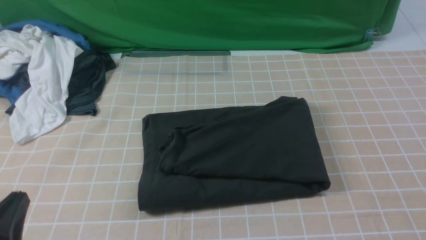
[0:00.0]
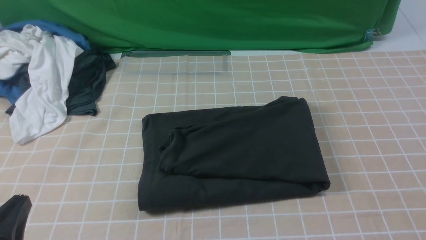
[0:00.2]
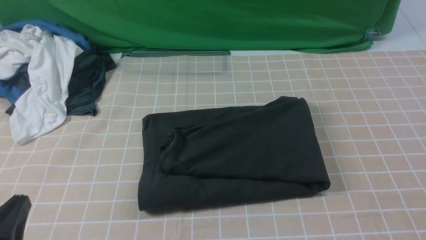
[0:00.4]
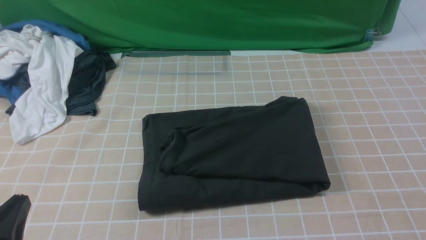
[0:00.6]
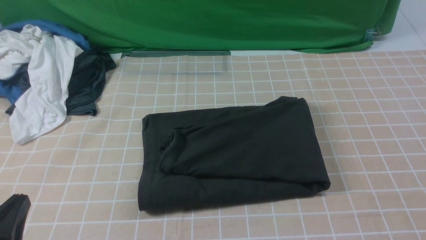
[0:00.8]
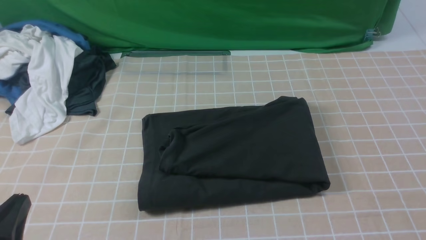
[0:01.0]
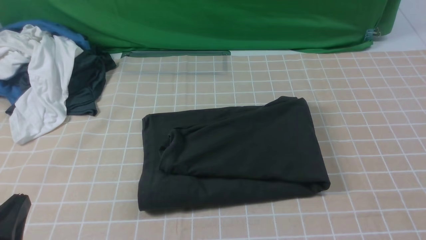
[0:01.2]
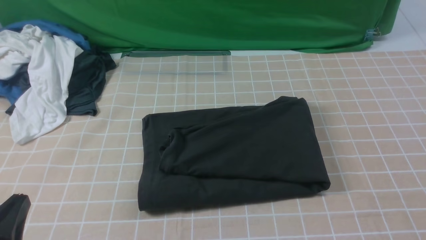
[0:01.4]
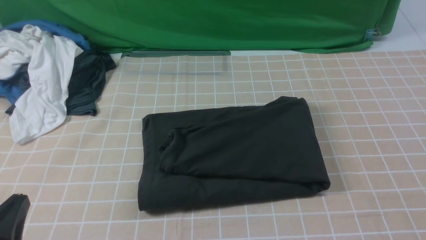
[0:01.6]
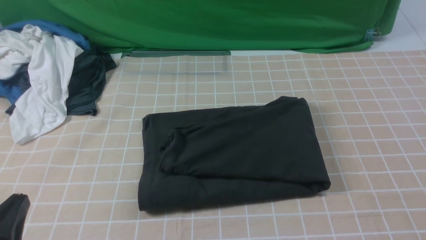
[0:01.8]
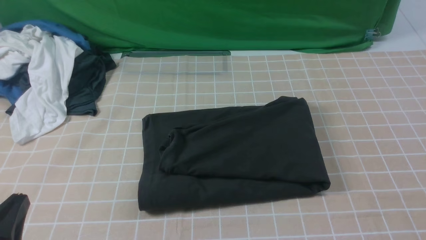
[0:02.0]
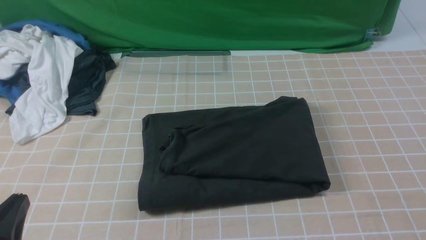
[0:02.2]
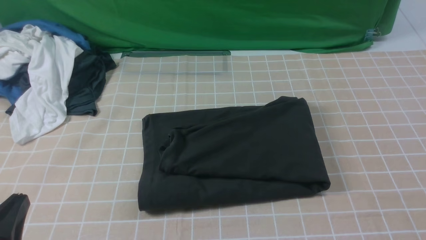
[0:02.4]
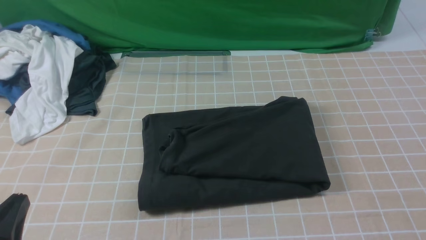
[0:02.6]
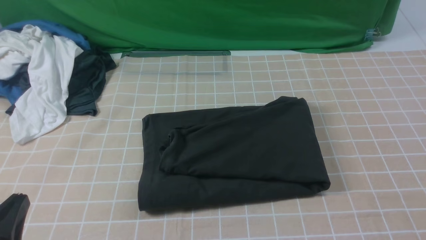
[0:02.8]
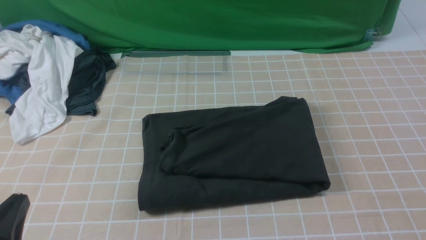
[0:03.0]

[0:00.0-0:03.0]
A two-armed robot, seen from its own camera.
1.6 to 3.0 s: Neither gripper changes place.

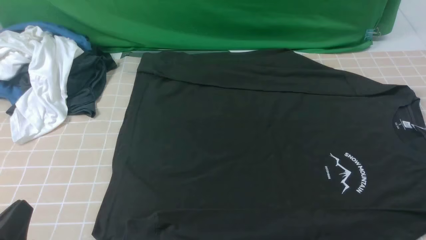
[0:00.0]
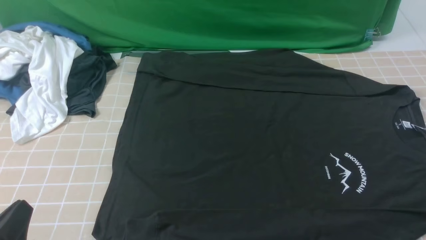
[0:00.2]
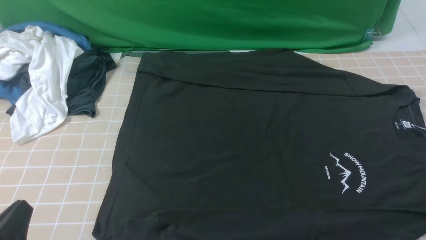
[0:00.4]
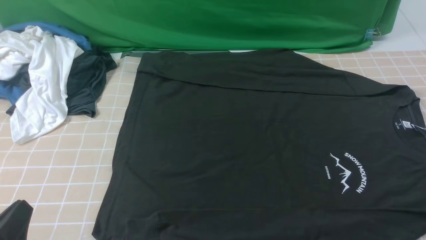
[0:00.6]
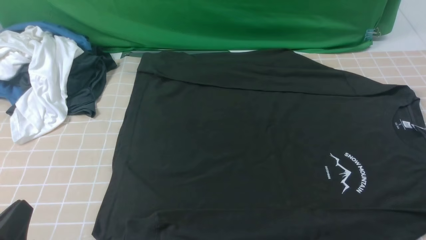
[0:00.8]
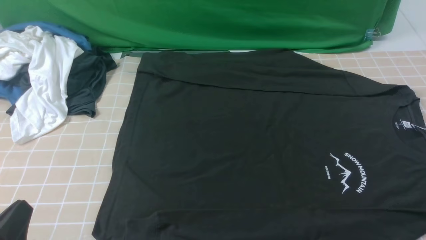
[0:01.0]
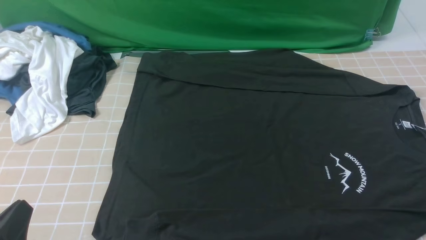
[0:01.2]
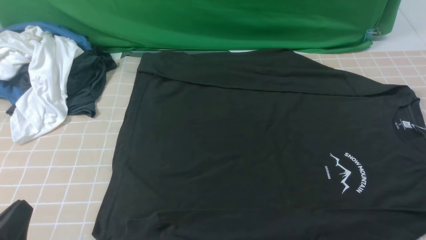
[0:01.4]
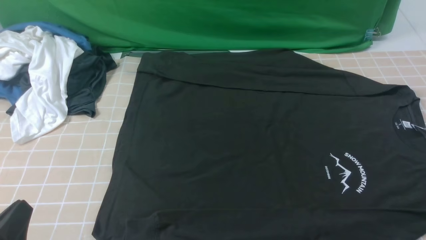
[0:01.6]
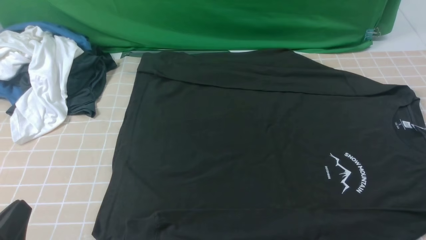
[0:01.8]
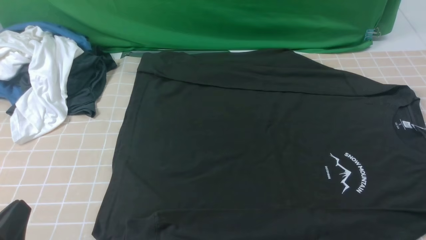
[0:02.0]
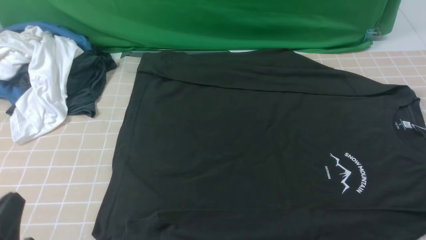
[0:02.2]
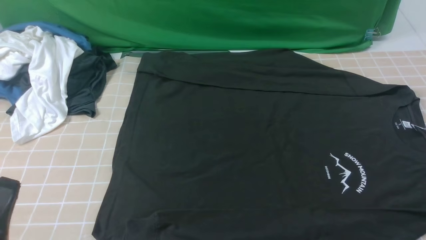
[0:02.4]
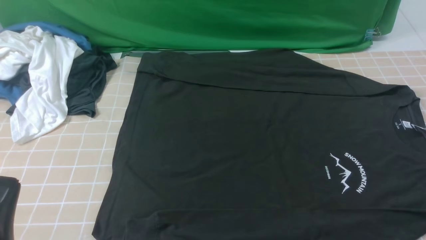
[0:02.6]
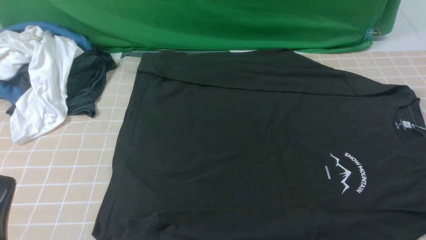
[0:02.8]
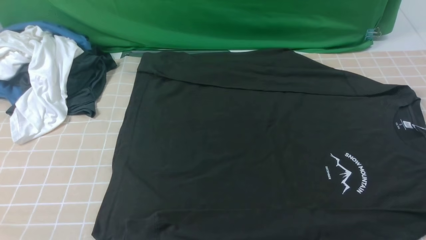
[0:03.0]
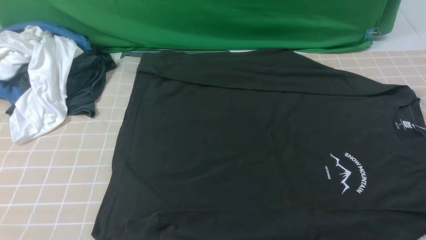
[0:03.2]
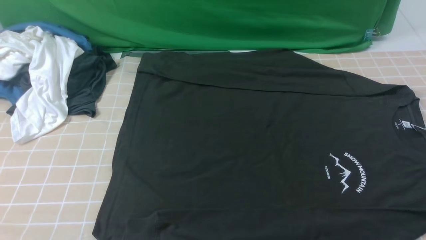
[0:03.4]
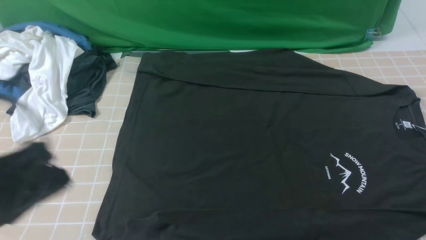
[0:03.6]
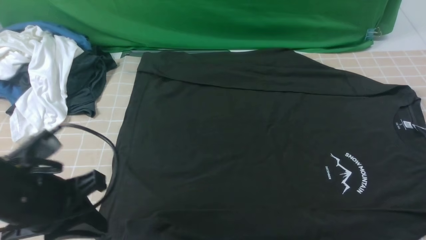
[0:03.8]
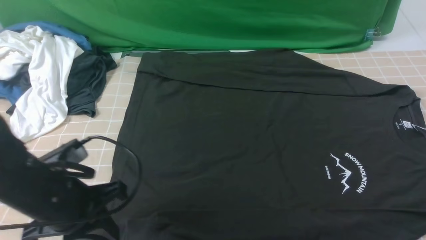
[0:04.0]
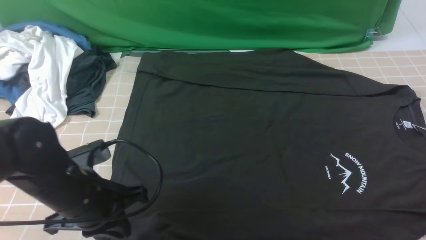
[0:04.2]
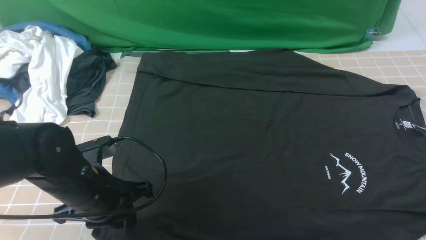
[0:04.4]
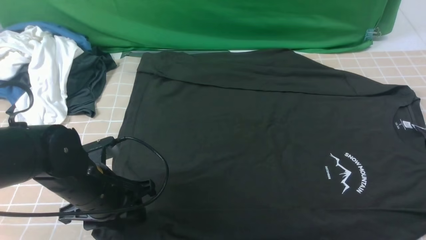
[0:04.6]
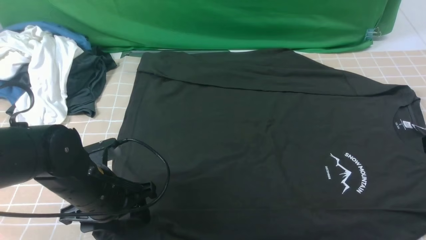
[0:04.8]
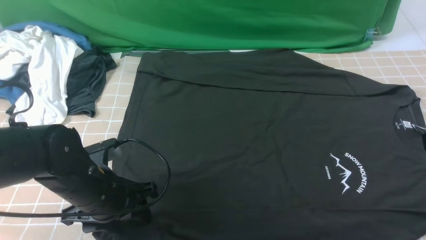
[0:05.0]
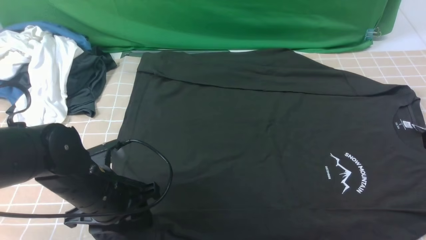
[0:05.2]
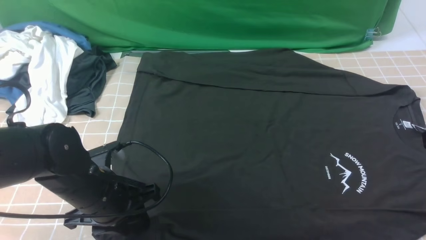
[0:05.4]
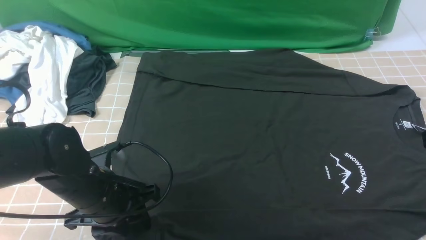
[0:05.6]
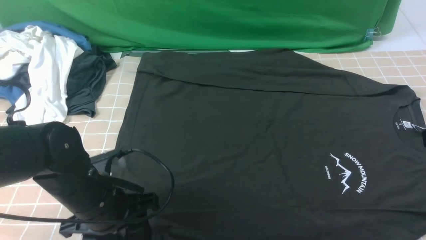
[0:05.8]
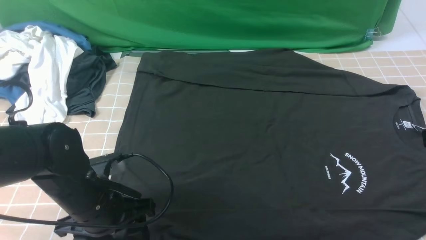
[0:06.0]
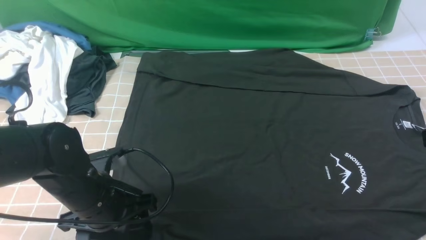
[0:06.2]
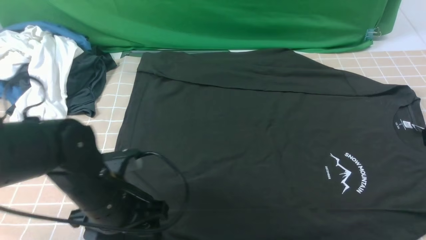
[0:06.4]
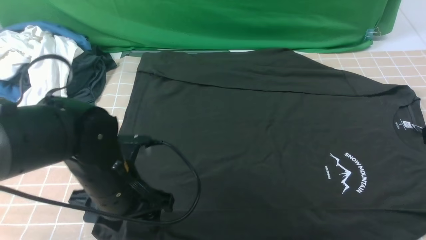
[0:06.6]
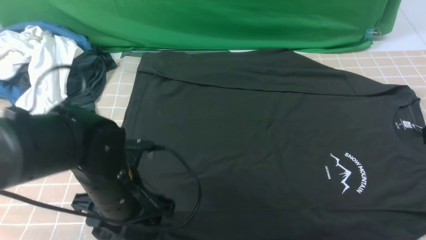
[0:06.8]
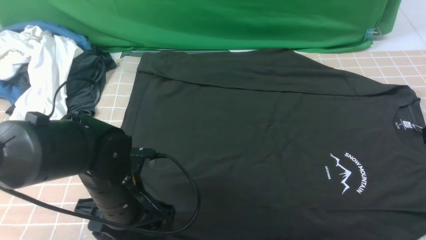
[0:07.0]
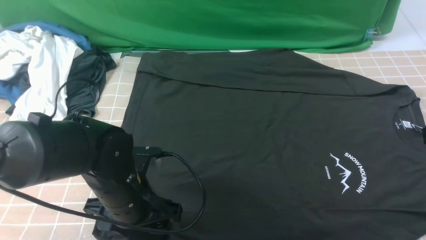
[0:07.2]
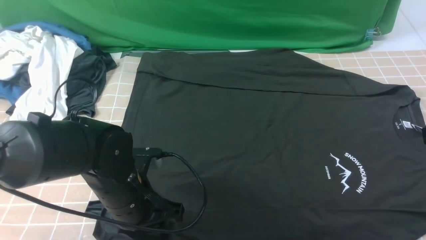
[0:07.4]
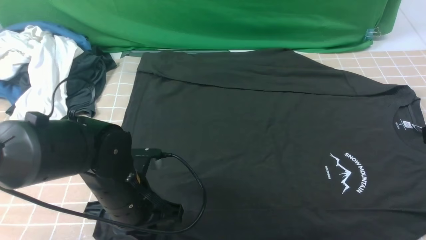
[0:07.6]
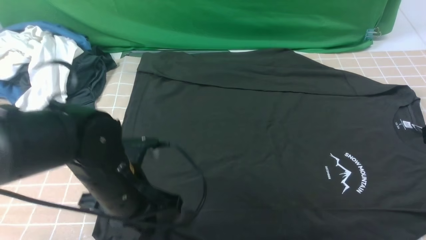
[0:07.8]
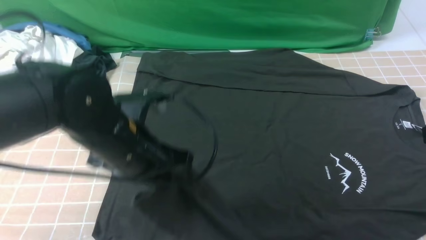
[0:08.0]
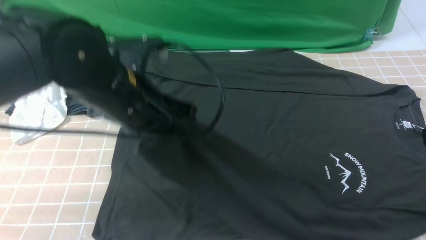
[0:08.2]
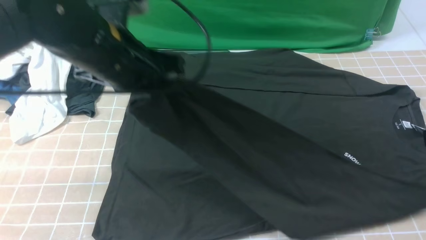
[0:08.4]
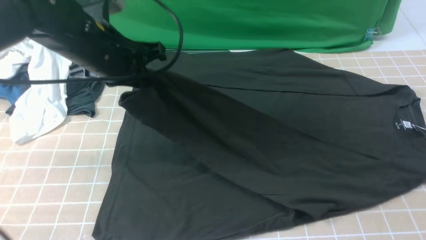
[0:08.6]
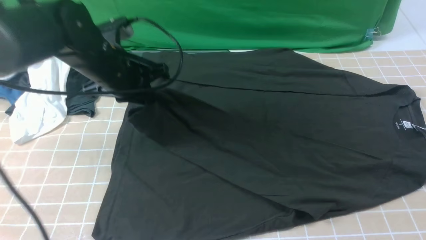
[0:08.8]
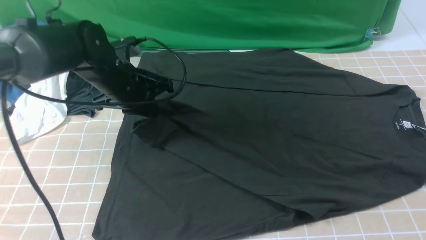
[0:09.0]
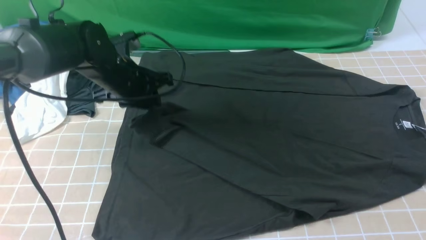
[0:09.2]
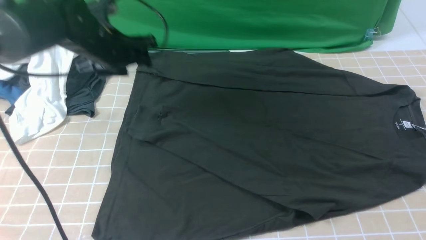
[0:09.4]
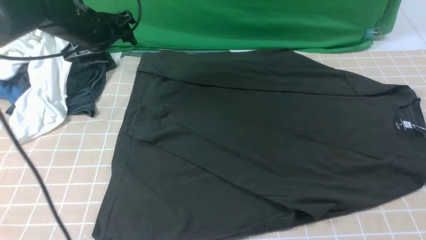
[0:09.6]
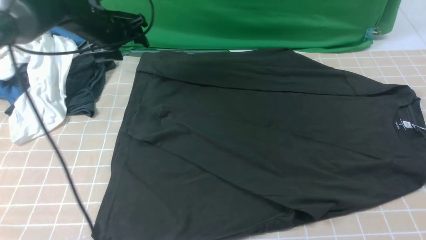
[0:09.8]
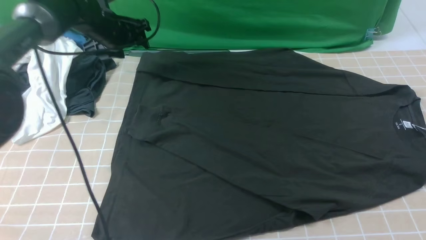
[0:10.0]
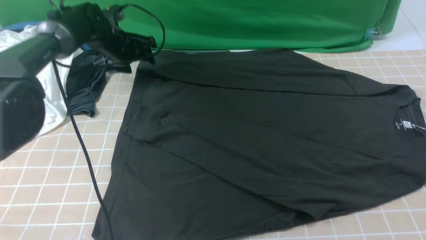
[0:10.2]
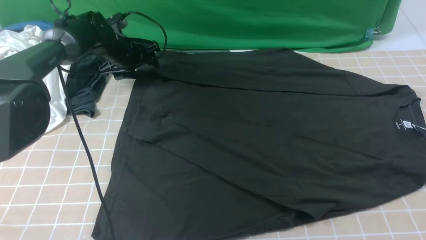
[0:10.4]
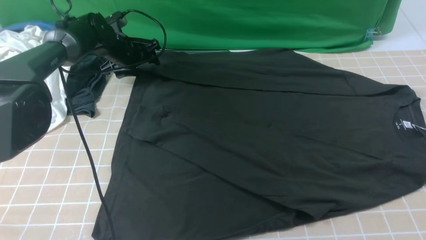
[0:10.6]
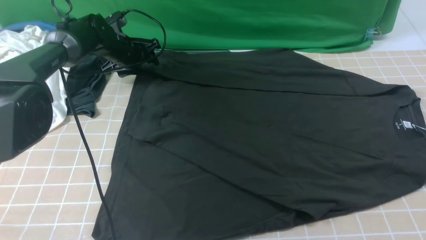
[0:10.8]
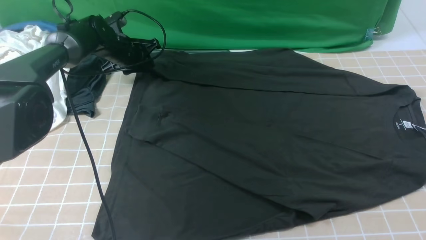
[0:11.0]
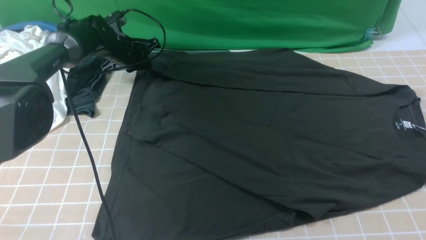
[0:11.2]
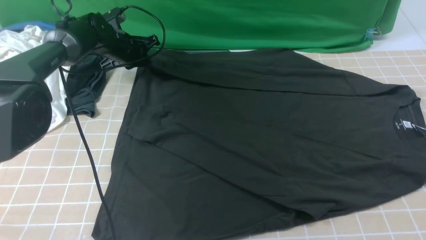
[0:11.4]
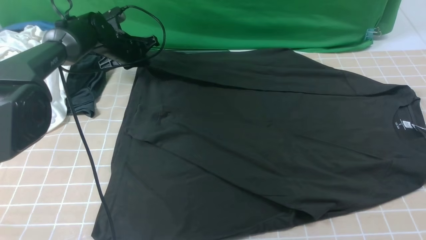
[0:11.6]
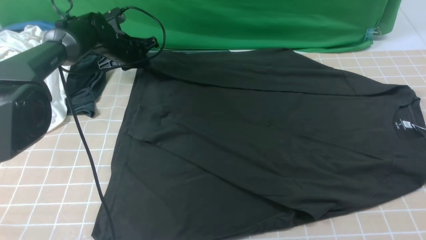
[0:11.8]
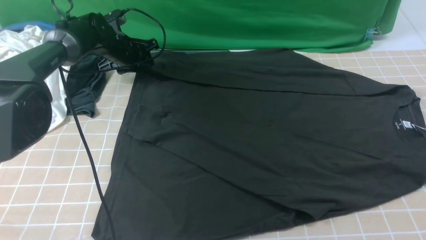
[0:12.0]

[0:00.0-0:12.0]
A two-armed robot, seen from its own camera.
Step, 0.0 to 7.6 s: use the left arm to clamp the cuff closest to it.
Step, 8.0 to 9.2 s: use the left arm to drag and place the cuff at the centered position on the left edge of the fabric.
0.0 to 1.6 s: The two grippers keep their place.
3.0 to 4.4 s: The left gripper is displaced forward and to the right by some 20 cm.
4.4 to 6.0 s: The left gripper opens up.
6.0 to 7.6 s: The left gripper closes its fingers.
7.6 to 9.0 s: The right gripper closes. Meanwhile the left gripper heads forward, covering approximately 15 cm.
9.0 to 10.4 s: The left gripper goes some 15 cm forward, and opens.
10.4 to 12.0 s: The left gripper closes, then reopens.

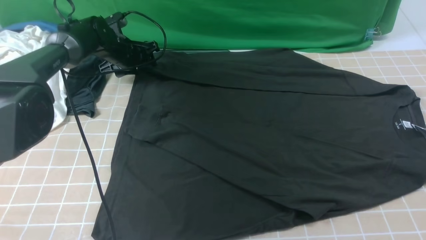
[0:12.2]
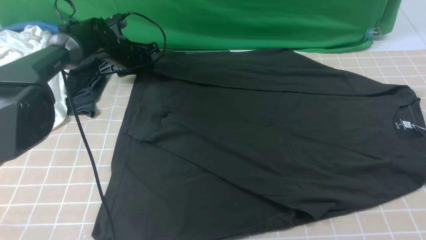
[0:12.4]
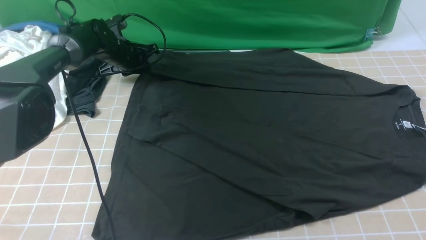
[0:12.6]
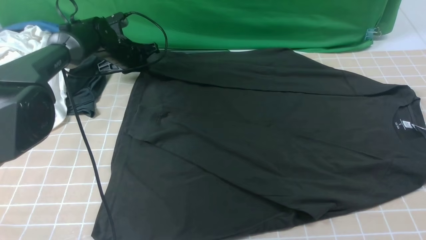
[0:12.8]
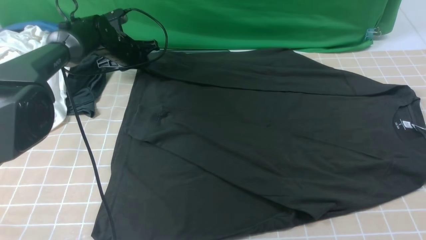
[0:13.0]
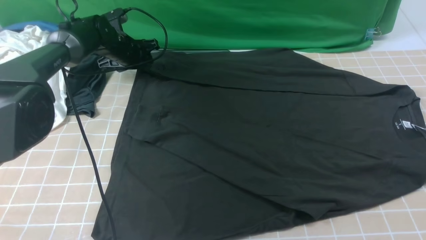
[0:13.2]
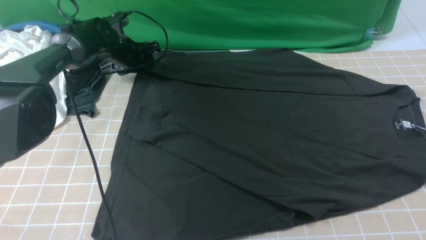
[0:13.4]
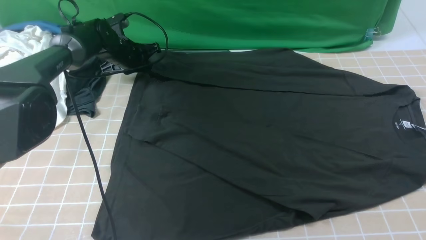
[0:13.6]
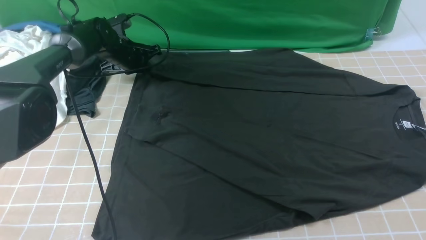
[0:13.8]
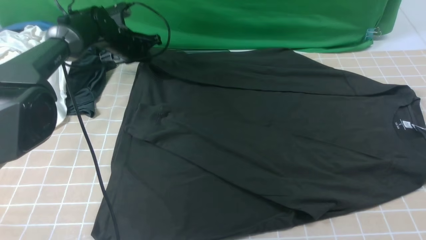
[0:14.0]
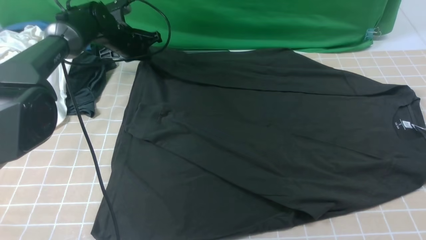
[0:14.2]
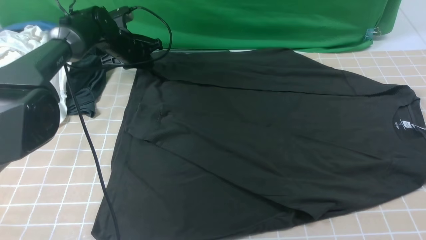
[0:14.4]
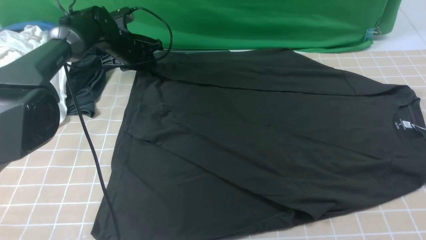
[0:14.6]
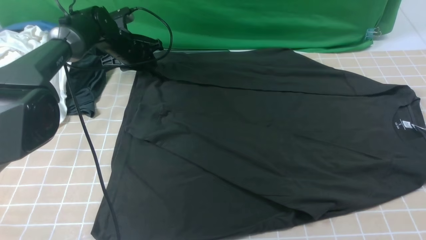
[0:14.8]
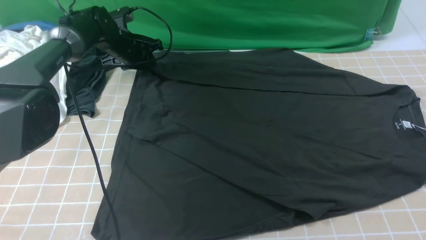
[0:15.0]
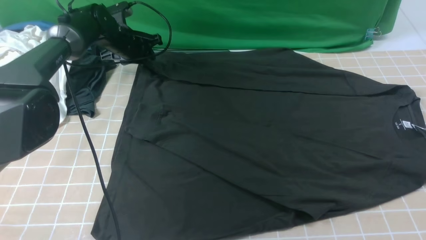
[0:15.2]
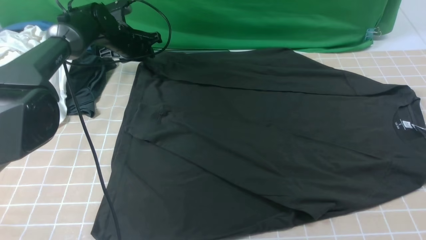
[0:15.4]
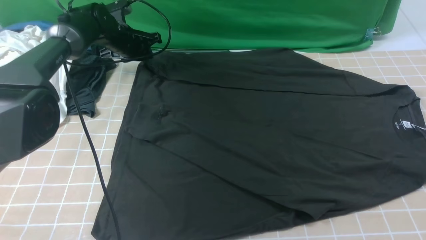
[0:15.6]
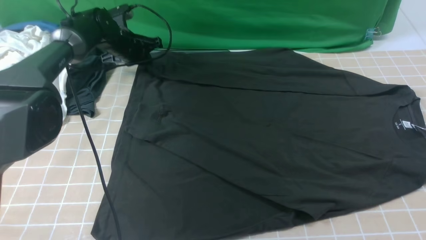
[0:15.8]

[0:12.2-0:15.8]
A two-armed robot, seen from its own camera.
12.2 to 14.0 s: The left gripper closes up.
14.0 to 15.8 s: The left gripper opens, then closes again.
